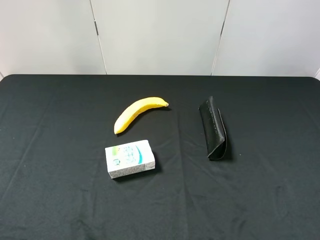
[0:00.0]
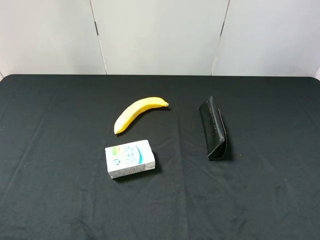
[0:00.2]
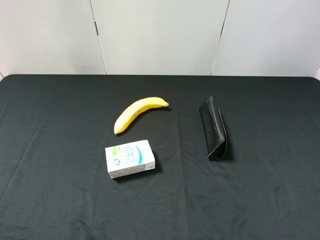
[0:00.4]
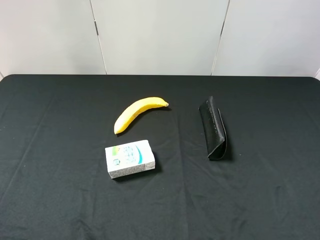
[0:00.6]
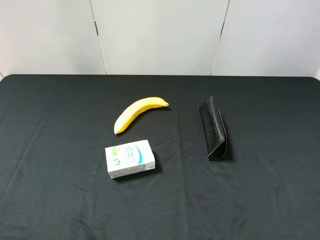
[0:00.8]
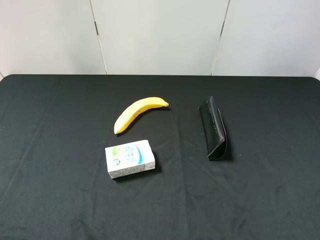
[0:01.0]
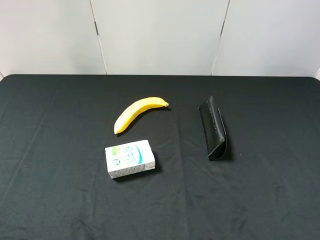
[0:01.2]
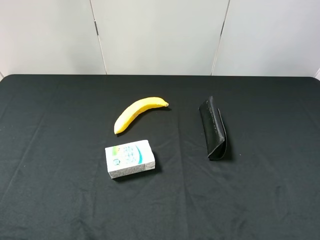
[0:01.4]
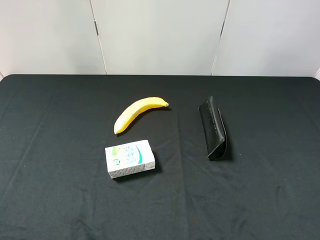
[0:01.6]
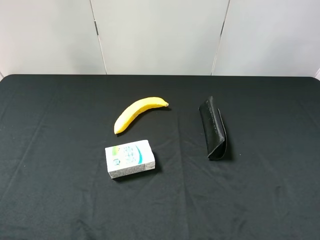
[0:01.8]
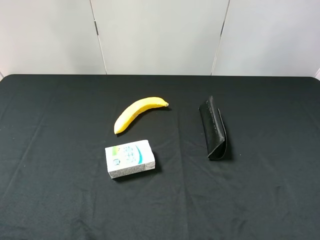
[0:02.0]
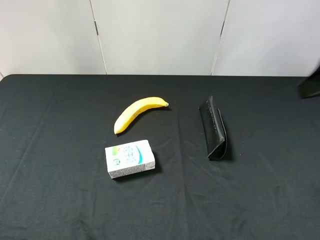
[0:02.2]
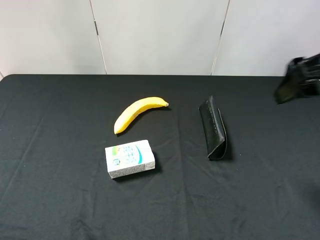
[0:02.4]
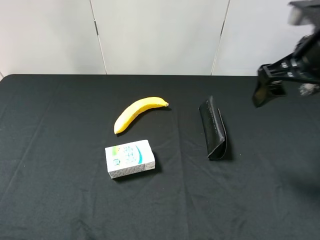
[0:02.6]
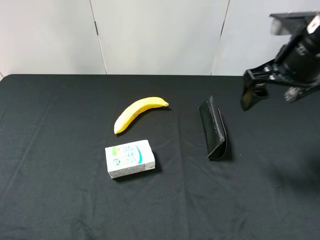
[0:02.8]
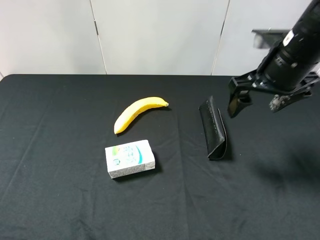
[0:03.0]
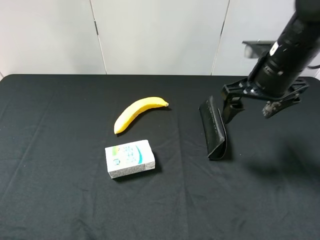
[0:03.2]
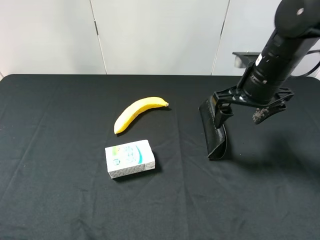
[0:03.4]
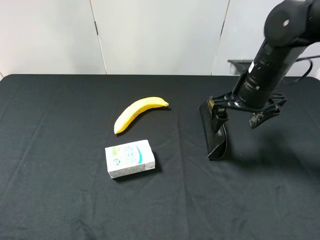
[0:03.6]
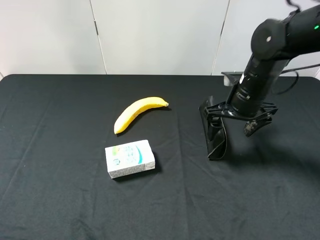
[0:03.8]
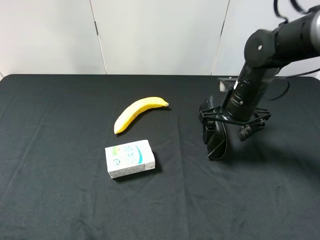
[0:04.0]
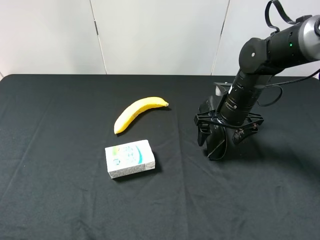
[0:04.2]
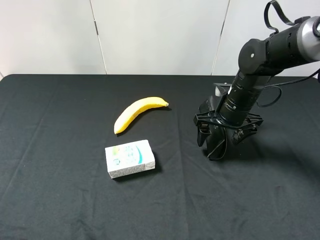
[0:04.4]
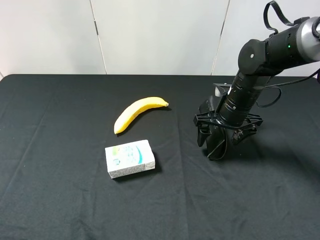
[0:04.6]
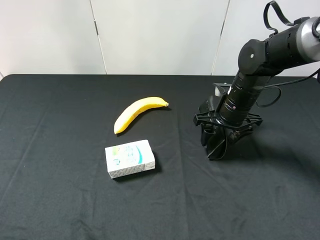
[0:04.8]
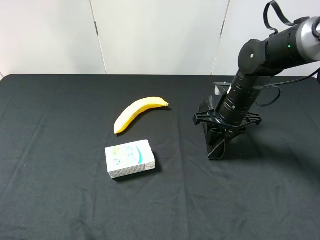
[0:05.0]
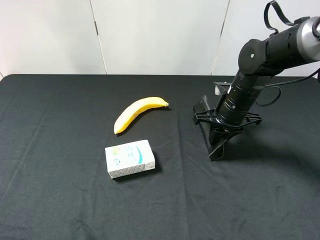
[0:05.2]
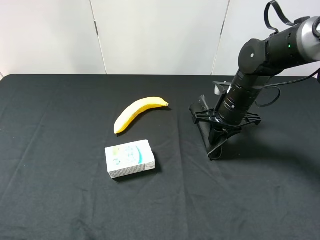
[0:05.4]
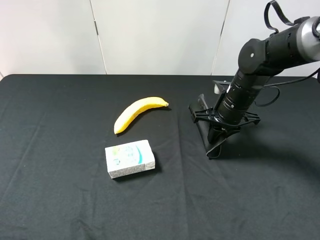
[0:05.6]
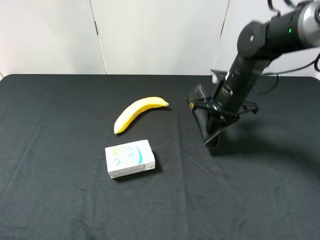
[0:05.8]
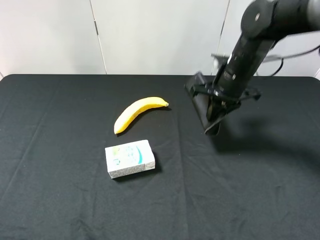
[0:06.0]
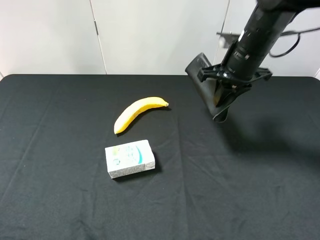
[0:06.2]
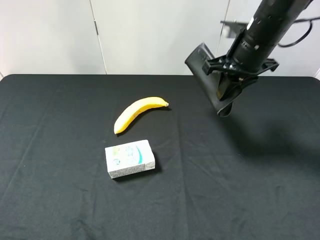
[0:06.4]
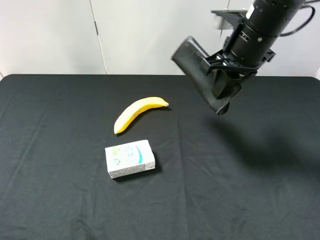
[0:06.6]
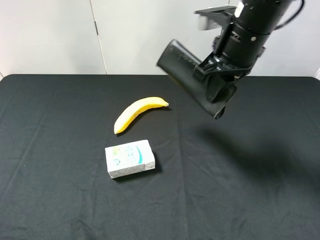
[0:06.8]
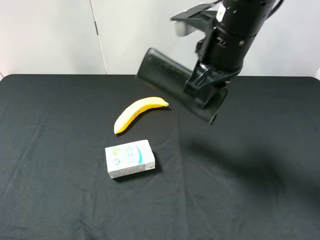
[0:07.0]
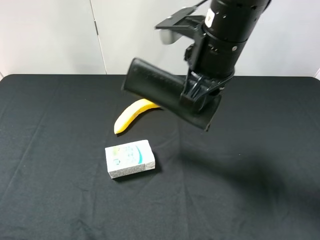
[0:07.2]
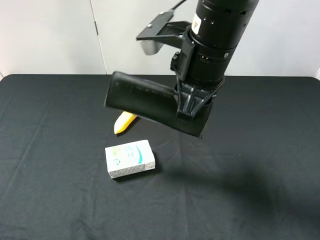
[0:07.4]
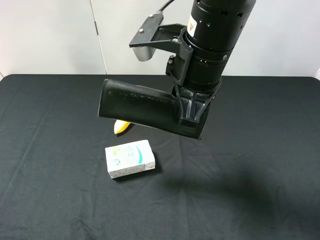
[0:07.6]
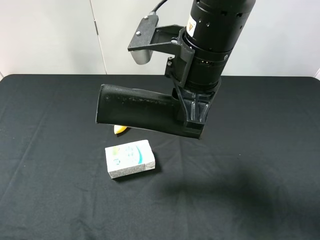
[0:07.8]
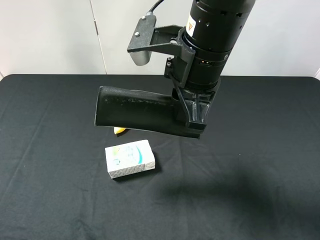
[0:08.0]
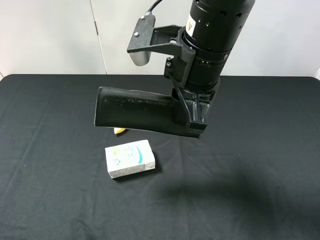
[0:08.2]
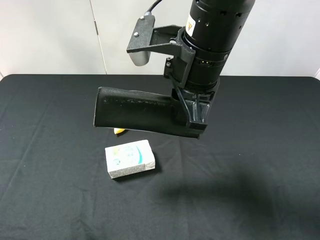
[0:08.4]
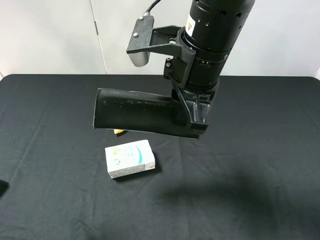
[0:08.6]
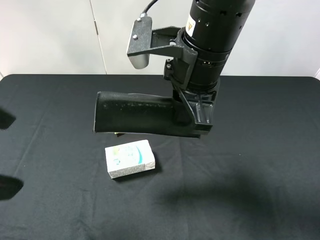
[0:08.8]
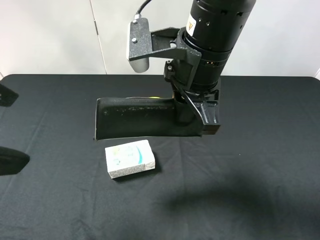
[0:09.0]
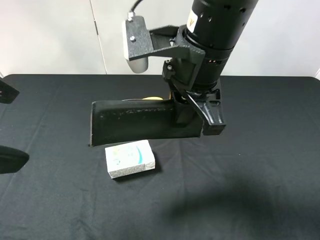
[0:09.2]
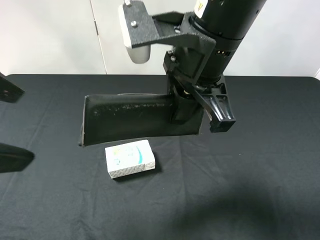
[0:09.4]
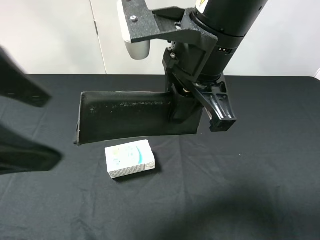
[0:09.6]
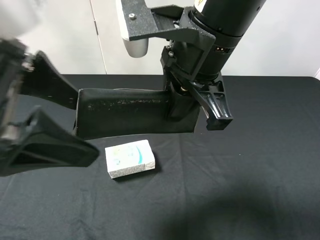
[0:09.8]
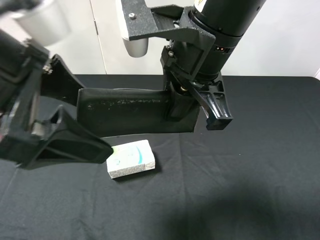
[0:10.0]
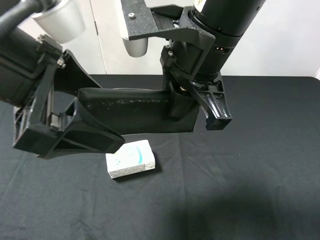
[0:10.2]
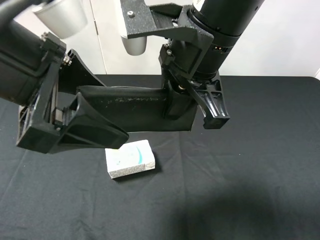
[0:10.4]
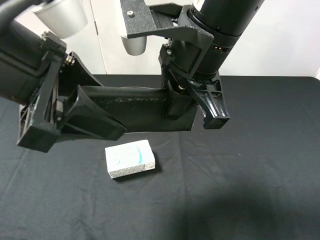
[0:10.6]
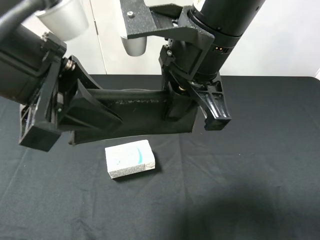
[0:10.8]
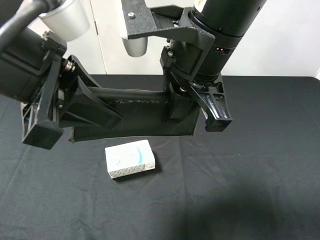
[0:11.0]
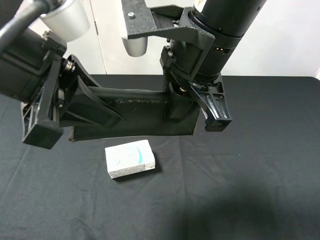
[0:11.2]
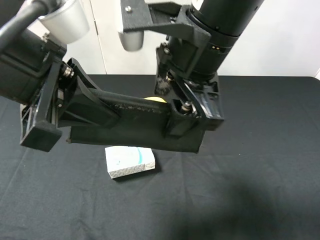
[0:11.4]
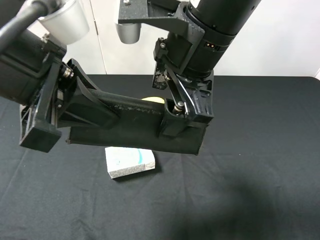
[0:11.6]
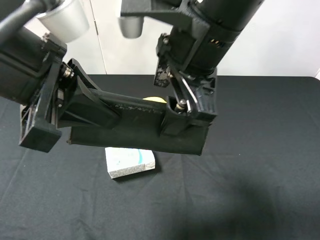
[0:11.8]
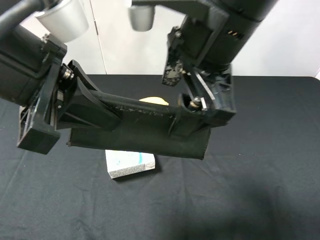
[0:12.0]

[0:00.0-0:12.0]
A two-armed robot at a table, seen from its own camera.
Task of the whole recording: use the right gripper to pick up the item and transfer it from the right gripper to the left gripper.
Step, 0:00.0 to 0:05.2: Use the right gripper to grab the eyeglass case on the right side of the table.
0:01.6 to 0:03.0: The right gripper moves forward and to the left, about 25 cm.
0:03.0 to 0:04.4: The right gripper travels downward by some 10 cm.
0:04.4 to 0:06.0: The right gripper shifts about 5 cm upward, and closes its fingers.
0:06.0 to 0:07.6: The right gripper heads backward, to the left and upward, covering roughly 20 cm.
0:07.6 to 0:09.0: The left gripper is displaced forward, to the right and upward by roughly 15 cm.
0:09.0 to 0:10.4: The left gripper is displaced to the right and forward by roughly 10 cm.
0:10.4 to 0:12.0: The right gripper opens its fingers. The left gripper closes.

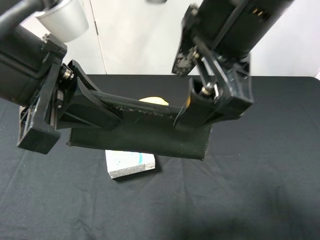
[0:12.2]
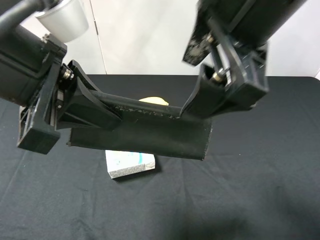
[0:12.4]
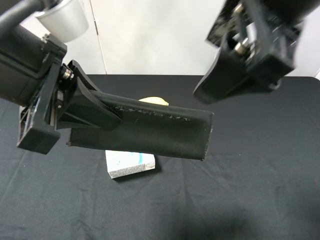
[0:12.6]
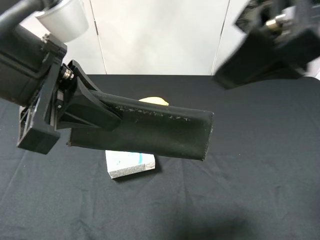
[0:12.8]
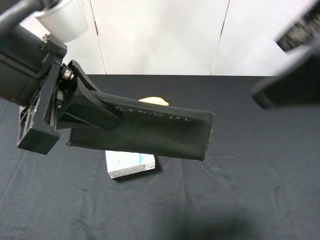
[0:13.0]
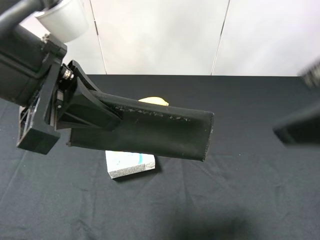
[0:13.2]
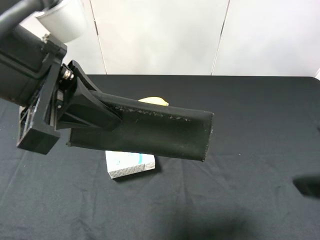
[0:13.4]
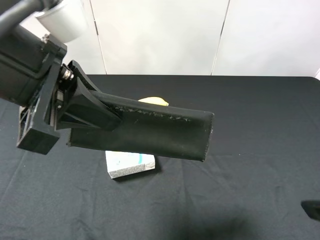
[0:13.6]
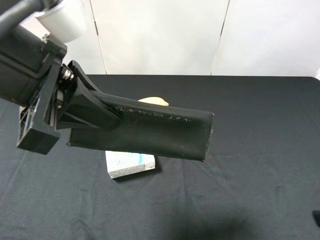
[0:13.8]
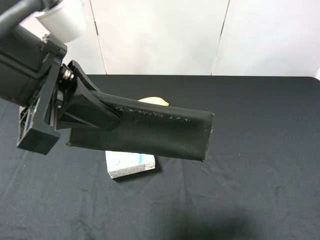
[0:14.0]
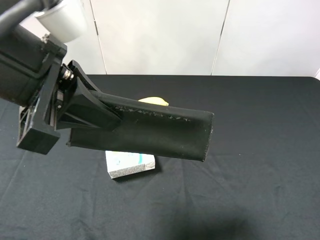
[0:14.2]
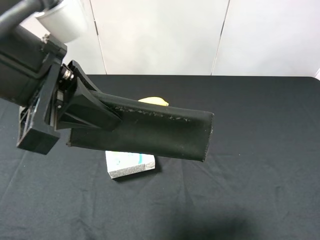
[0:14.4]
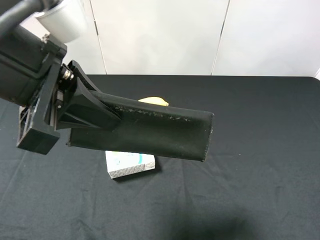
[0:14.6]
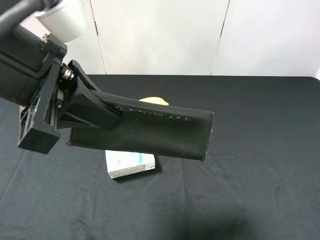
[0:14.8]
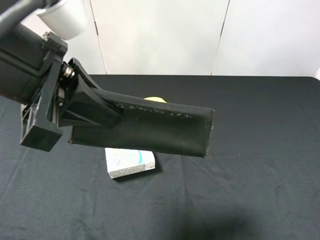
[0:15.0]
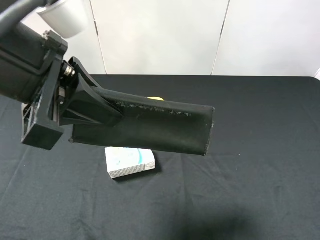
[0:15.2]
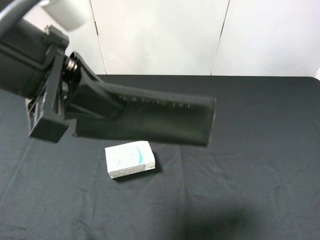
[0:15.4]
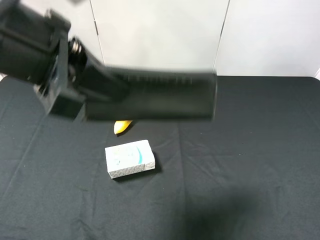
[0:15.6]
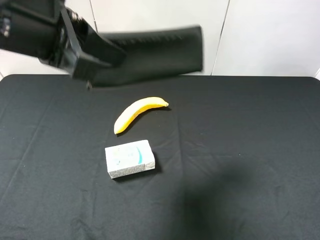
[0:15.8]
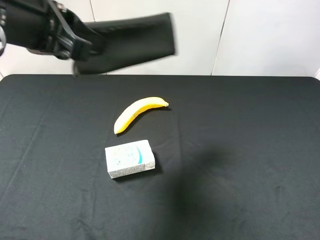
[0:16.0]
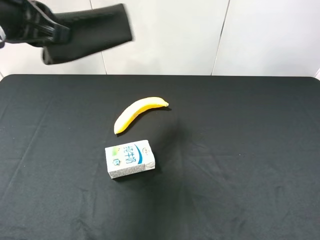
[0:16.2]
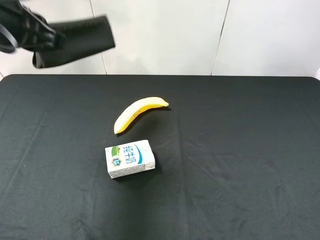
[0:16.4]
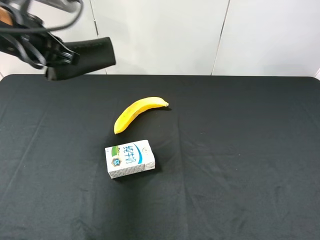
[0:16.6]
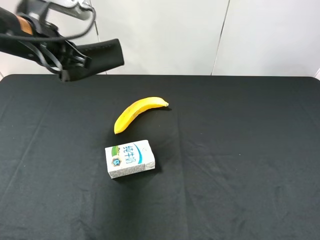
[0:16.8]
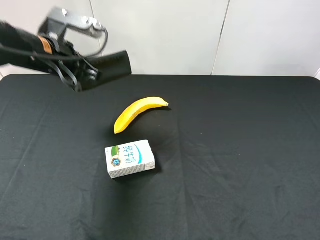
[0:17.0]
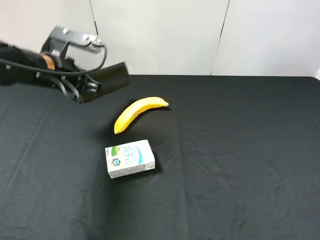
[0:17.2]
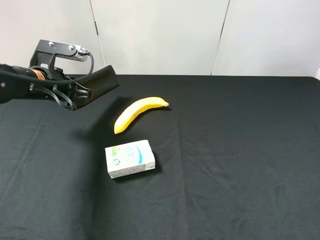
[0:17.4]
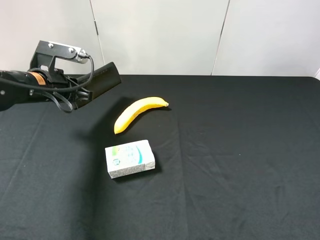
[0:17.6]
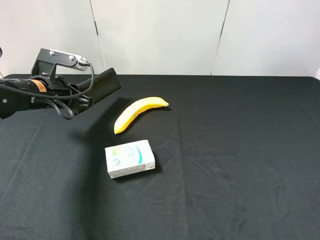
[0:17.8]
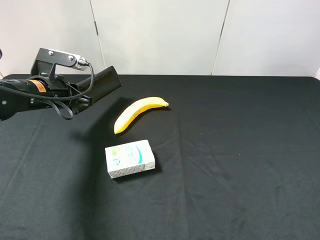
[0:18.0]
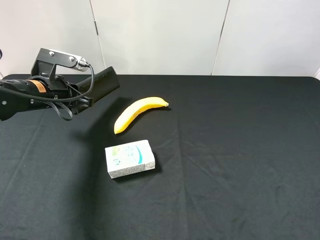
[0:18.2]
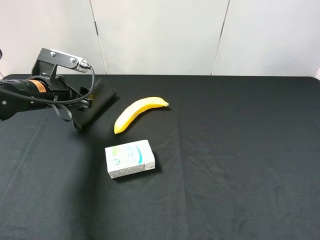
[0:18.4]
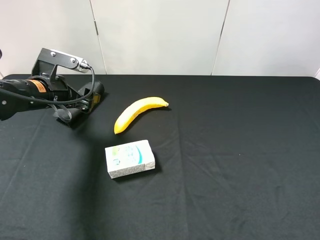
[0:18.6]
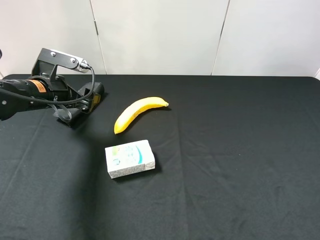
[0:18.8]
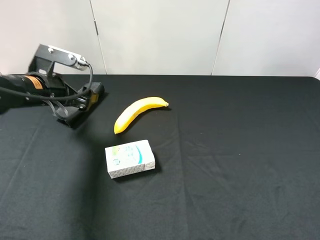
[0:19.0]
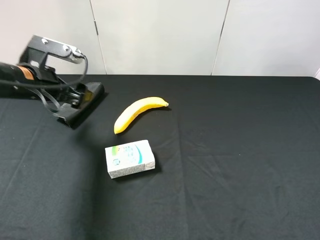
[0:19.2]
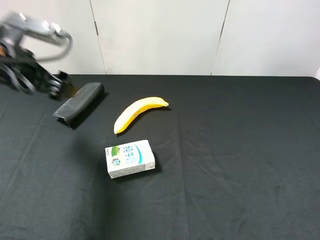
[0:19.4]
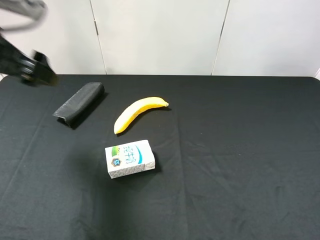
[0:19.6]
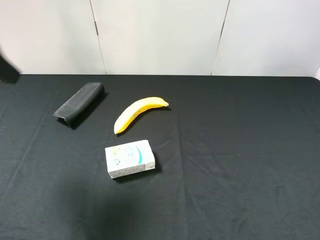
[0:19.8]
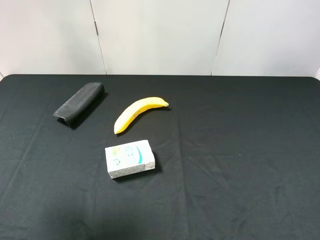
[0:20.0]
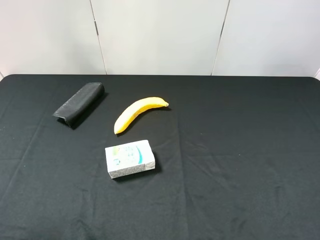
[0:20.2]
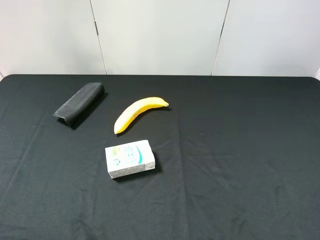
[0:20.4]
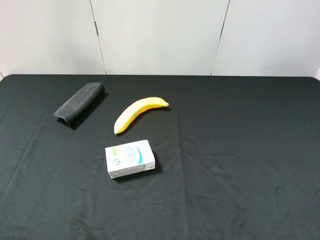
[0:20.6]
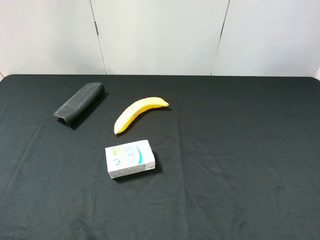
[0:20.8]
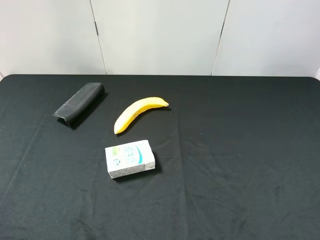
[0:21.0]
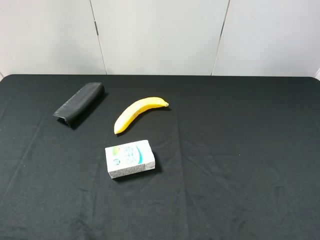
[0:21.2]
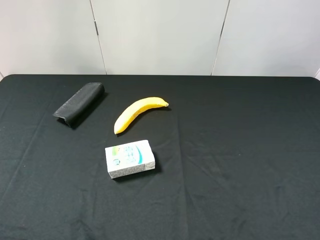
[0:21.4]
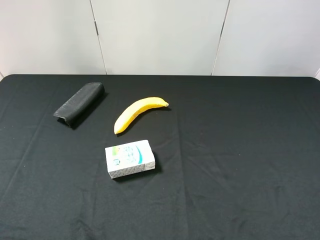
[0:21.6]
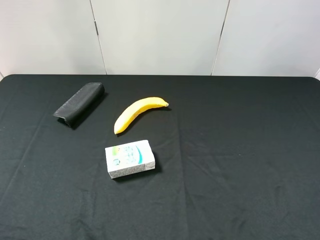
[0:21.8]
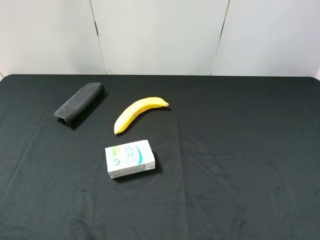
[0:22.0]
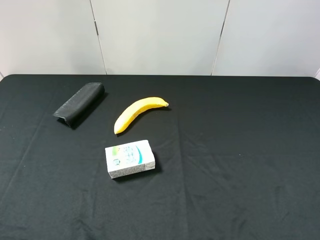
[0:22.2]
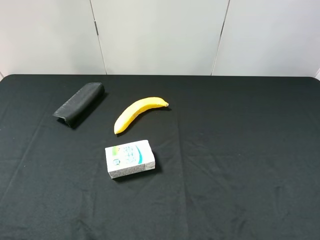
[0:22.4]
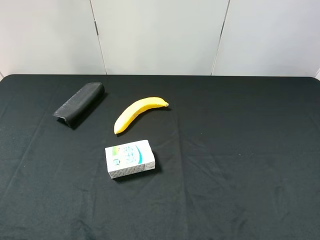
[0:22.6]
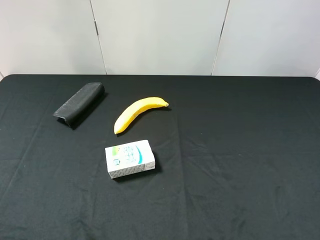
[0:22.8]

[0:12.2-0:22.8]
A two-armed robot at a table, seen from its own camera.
Task of the whole recording: use the right gripper to pick up the item and transfer it from the right gripper to the left gripper.
Step, 0:12.6 to 0:18.6: The left gripper places eyeglass case on the left side of the table.
0:12.2 to 0:13.8: The right gripper moves to the right, backward and downward, some 25 cm.
0:15.2 to 0:16.8: The left gripper heads forward and downward, covering approximately 15 cm.
0:16.8 to 0:18.2: The left gripper moves downward, about 10 cm.
0:18.2 to 0:19.8: The left gripper is displaced upward and backward by approximately 25 cm, and opens up.
0:19.8 to 0:21.2: The left gripper shifts some 20 cm backward.
